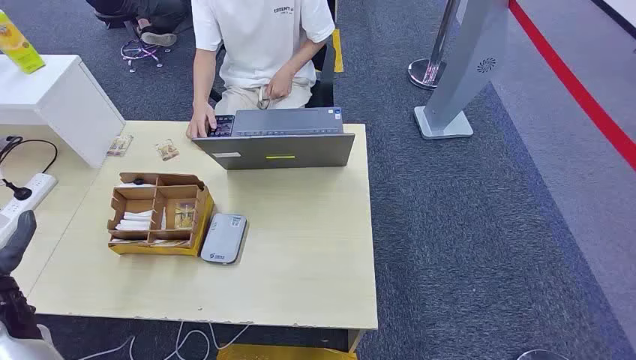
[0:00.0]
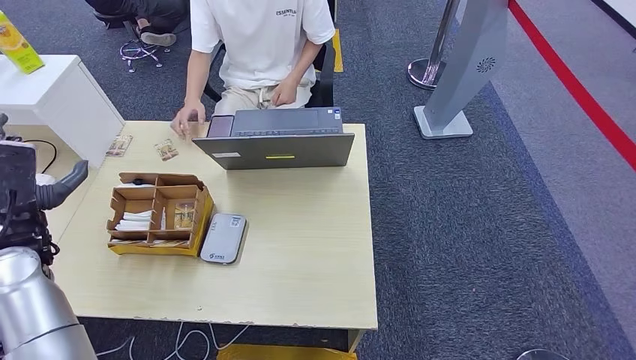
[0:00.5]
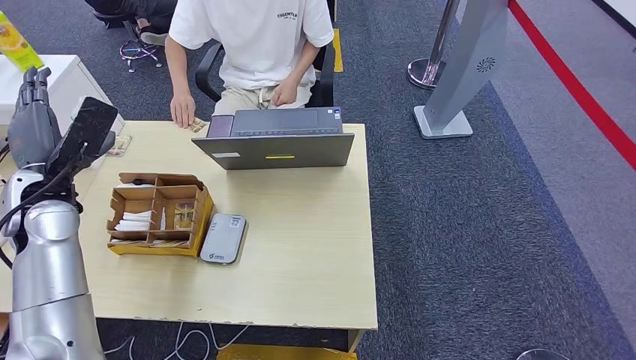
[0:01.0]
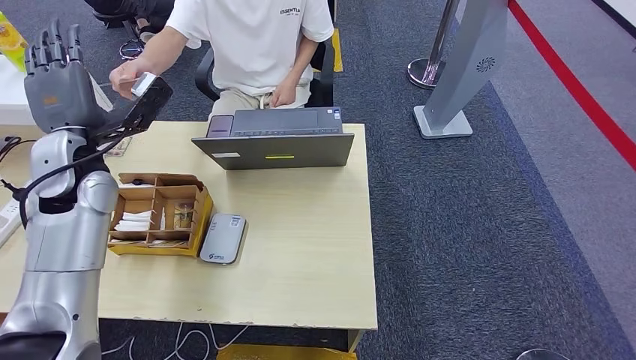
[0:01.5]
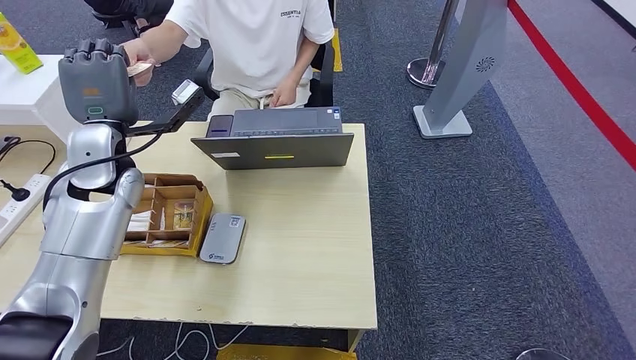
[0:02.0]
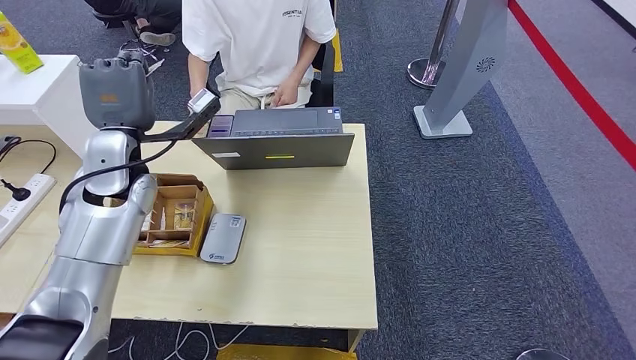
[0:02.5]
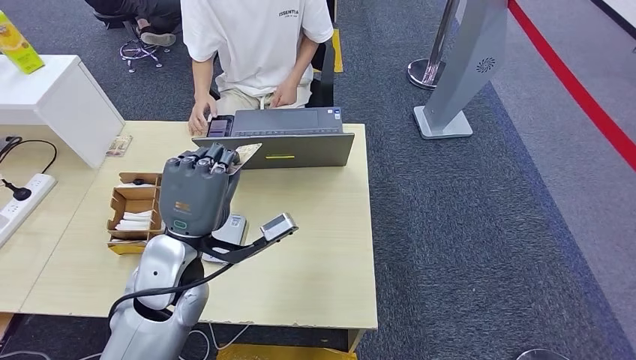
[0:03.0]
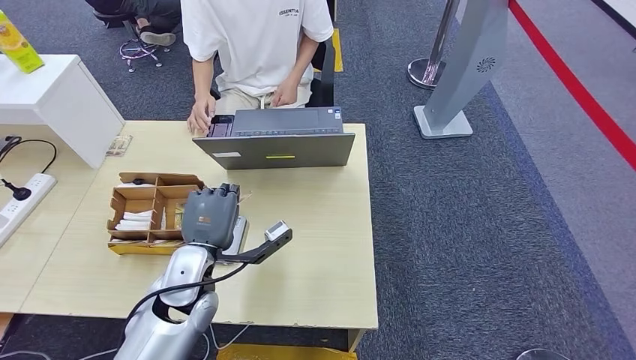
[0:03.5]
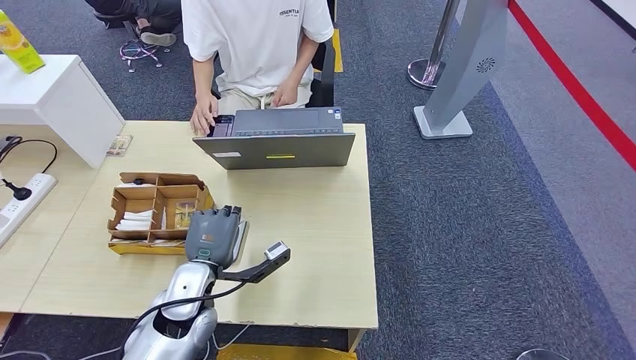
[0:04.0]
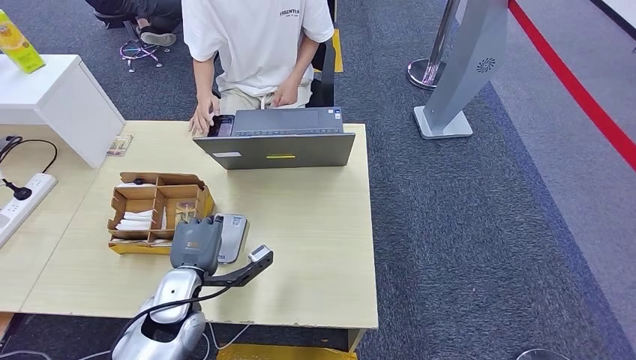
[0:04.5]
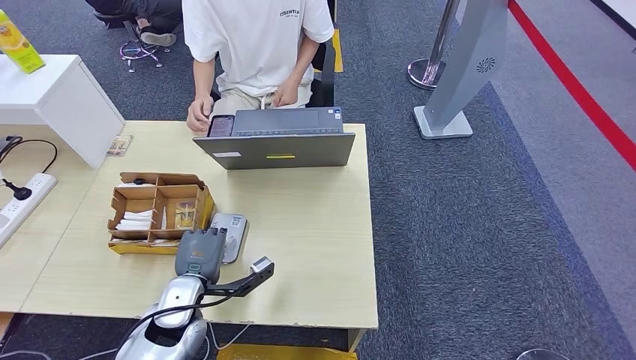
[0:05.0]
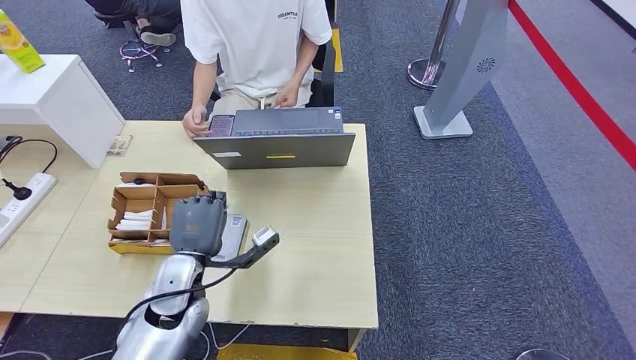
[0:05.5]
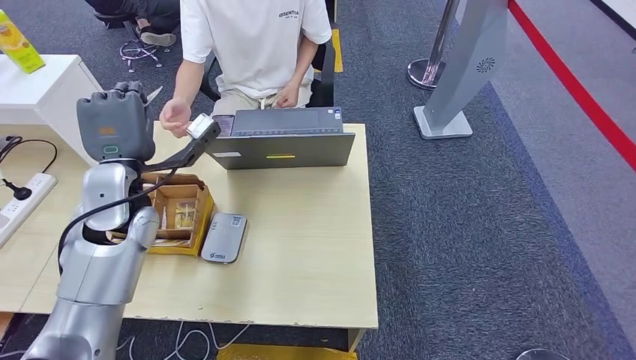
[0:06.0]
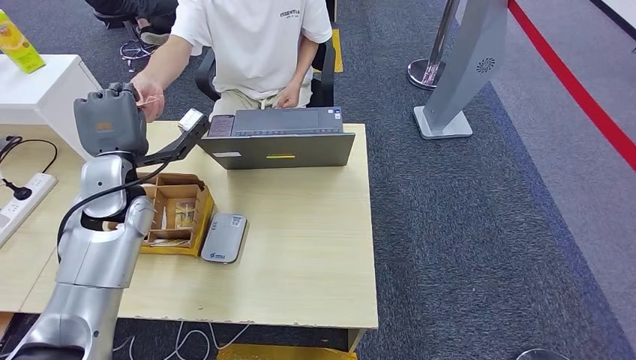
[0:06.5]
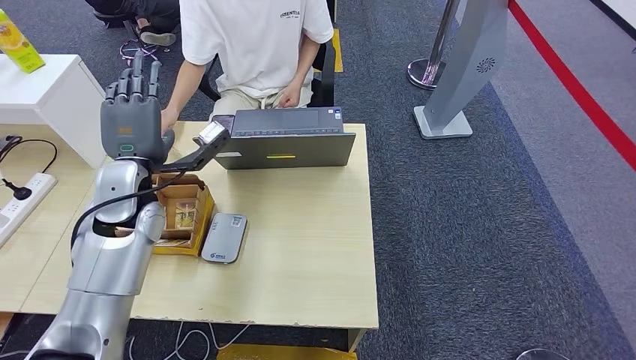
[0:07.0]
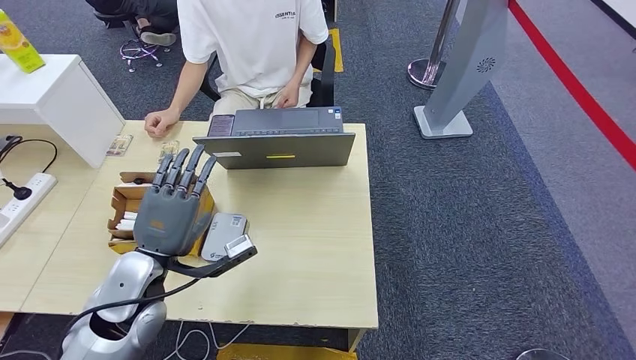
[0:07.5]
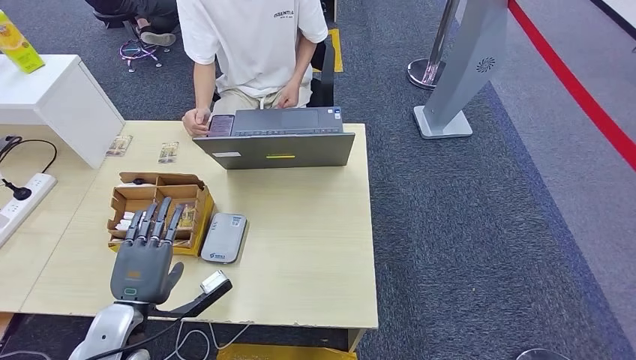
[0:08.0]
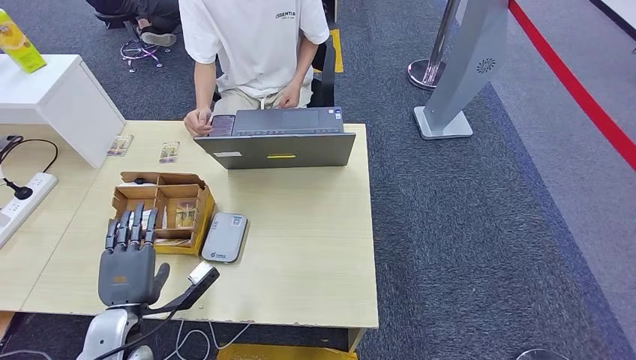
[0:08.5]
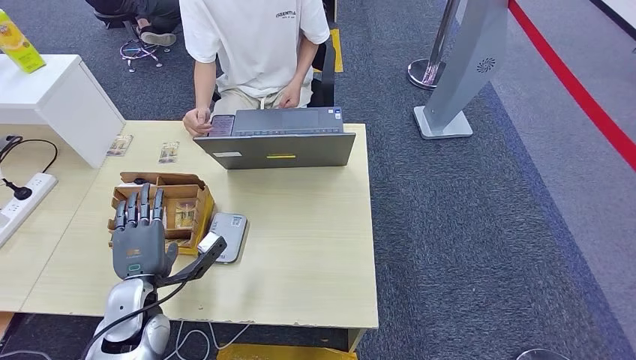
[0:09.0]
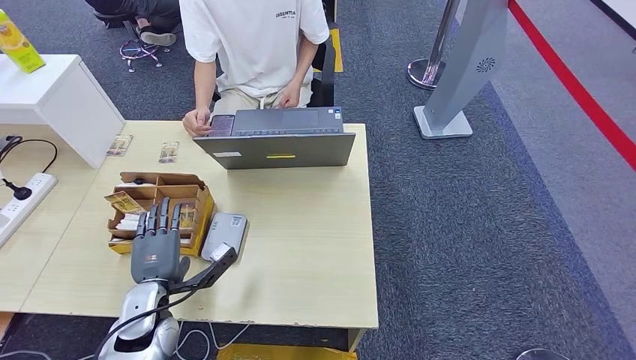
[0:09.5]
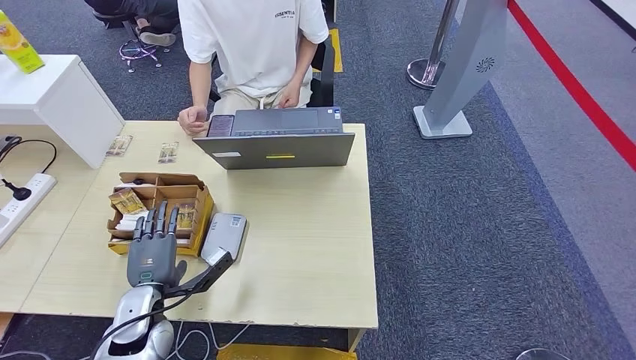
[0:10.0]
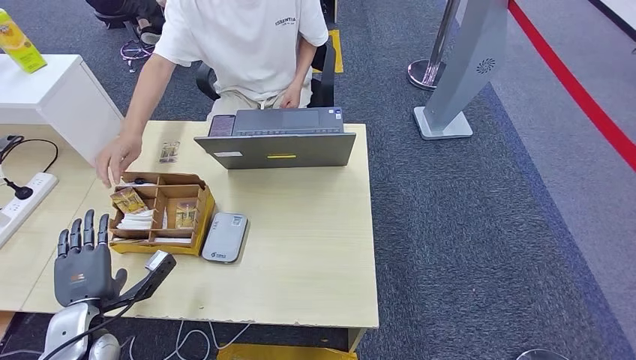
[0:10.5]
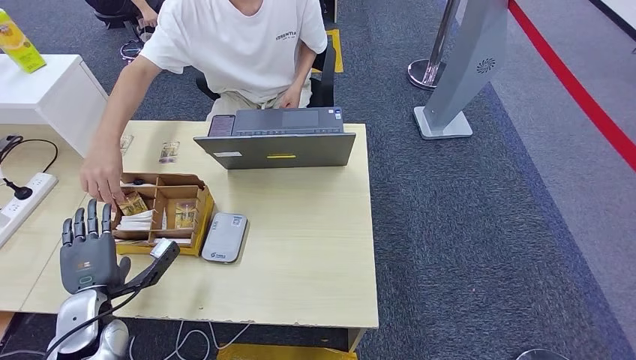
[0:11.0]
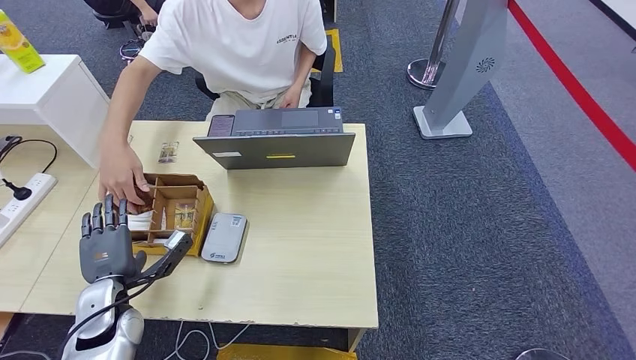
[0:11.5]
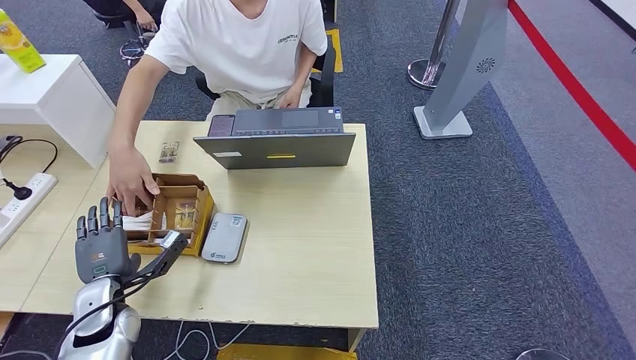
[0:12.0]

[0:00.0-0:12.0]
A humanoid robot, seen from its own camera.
Step, 0:00.0 to 0:02.5: Take the ID card from the person's hand.
Step, 0:03.0 to 0:05.0: Place the ID card on the card reader.
Step, 0:05.5 to 0:07.5: Hand the ID card to the person.
0:04.0 to 0:06.0: The left hand travels upward, forward and to the left by some 20 cm.
0:06.0 to 0:08.0: The left hand moves backward and downward, approximately 25 cm.
0:08.0 to 0:10.0: The left hand changes place by roughly 5 cm.
0:10.0 to 0:12.0: The left hand heads to the left, covering approximately 5 cm.

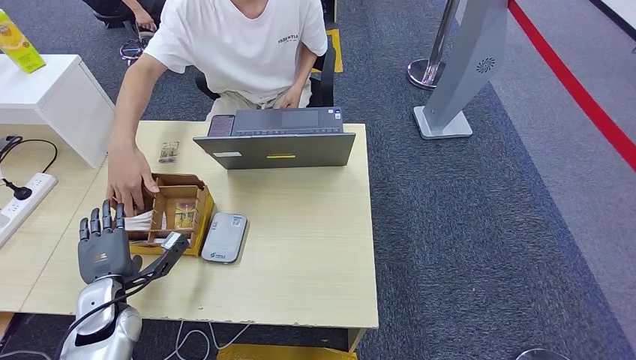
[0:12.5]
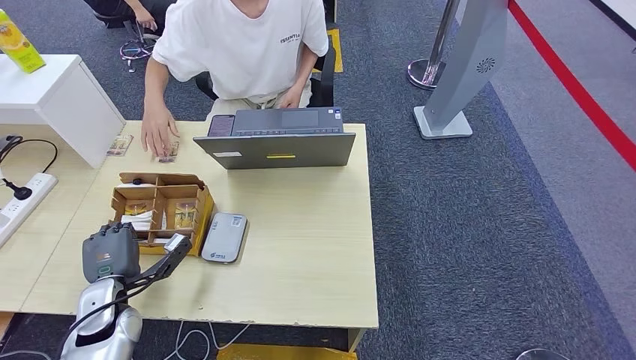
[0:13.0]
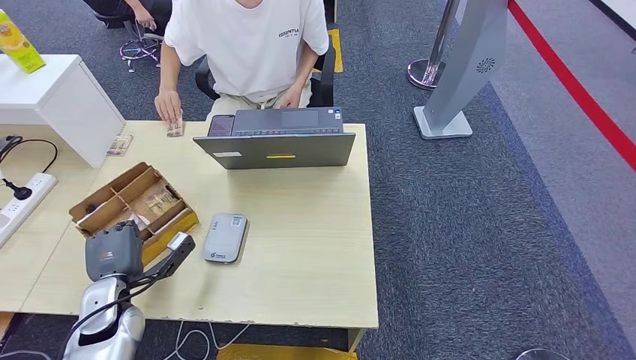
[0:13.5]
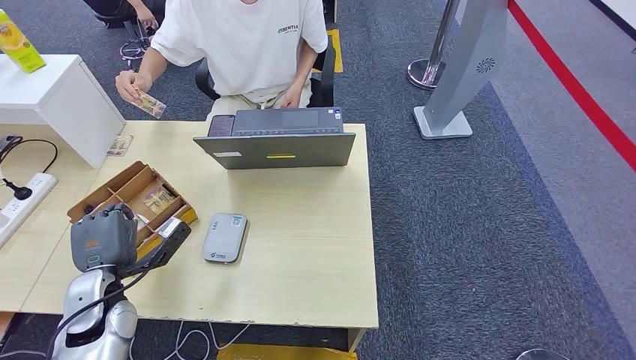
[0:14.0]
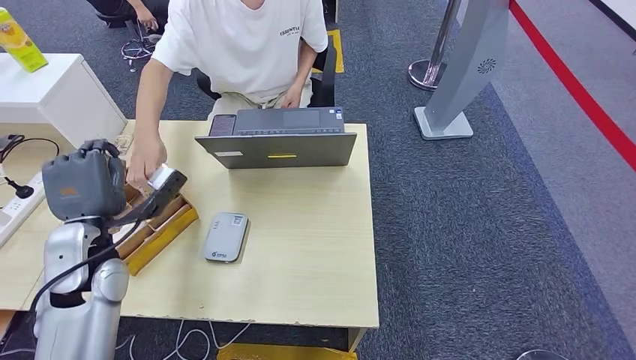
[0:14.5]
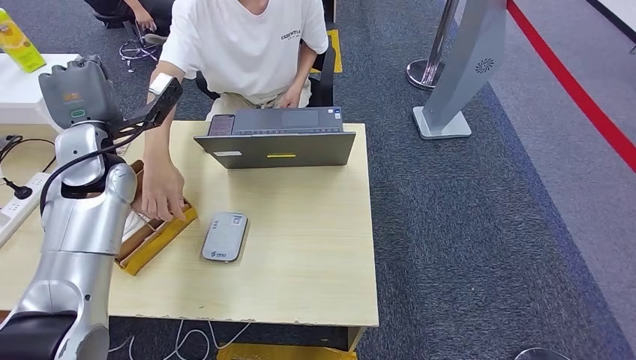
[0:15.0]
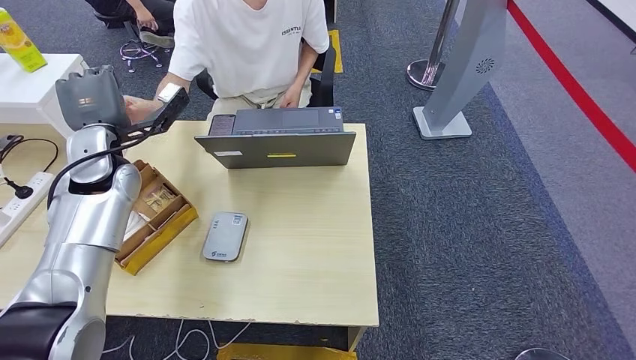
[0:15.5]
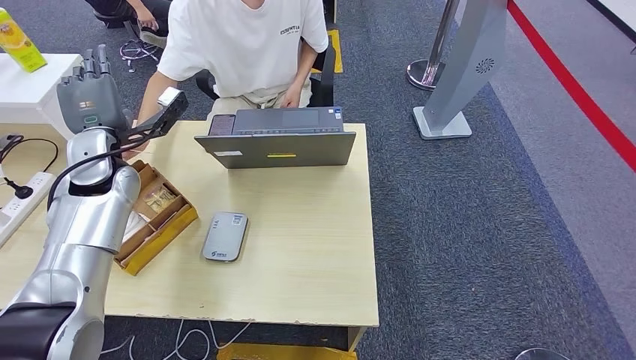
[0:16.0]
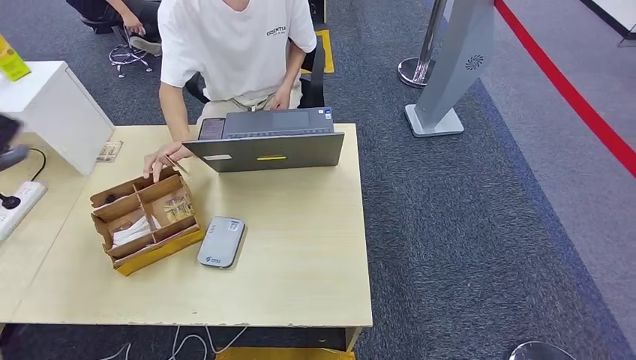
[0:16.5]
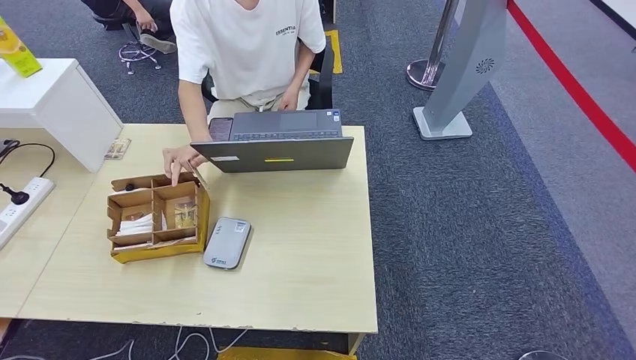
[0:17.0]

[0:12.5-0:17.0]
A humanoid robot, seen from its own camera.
Step, 0:12.5 to 0:14.5: Pick up the room key from the key card box.
Step, 0:15.0 to 0:17.0: Hand the room key to the person.
0:12.5 to 0:14.5: The left hand is displaced upward by about 15 cm.
